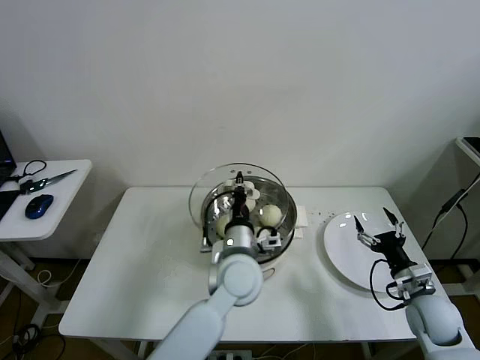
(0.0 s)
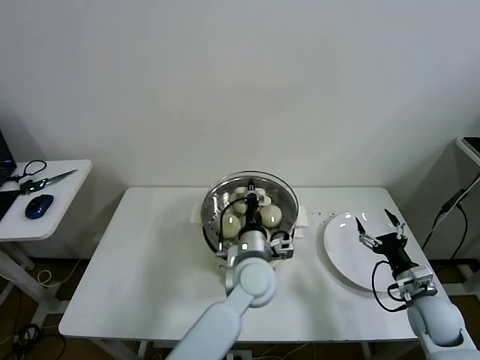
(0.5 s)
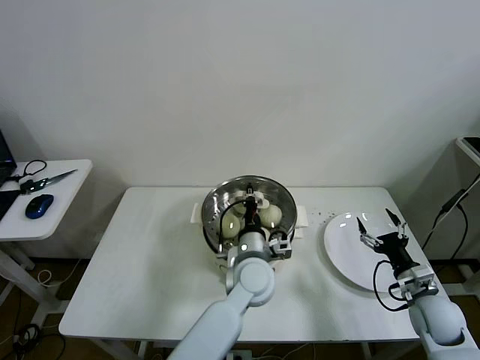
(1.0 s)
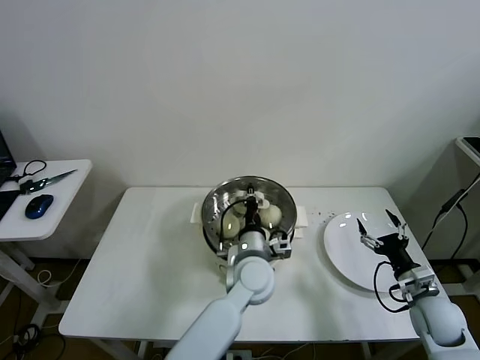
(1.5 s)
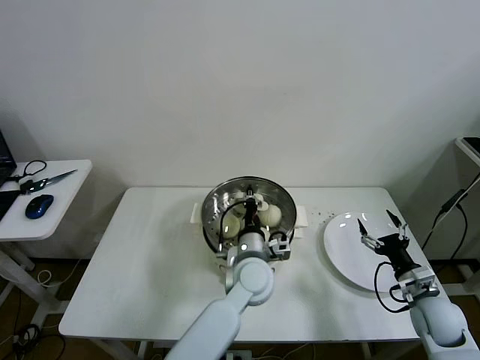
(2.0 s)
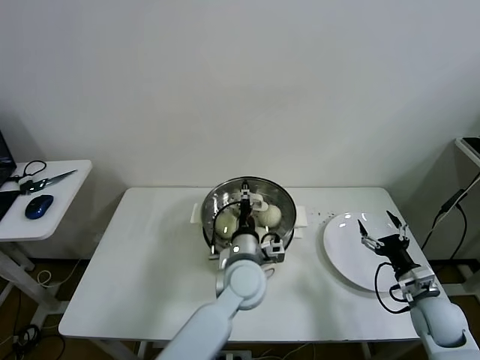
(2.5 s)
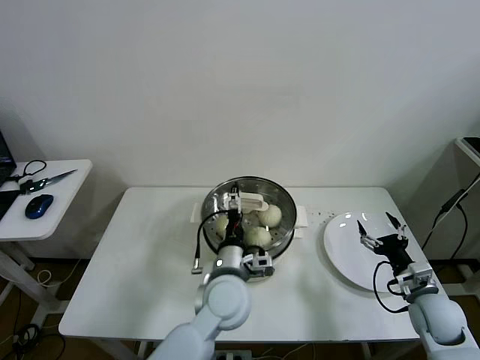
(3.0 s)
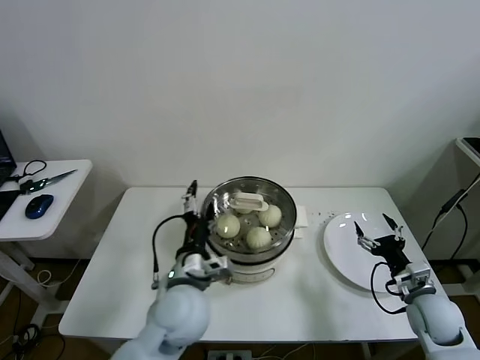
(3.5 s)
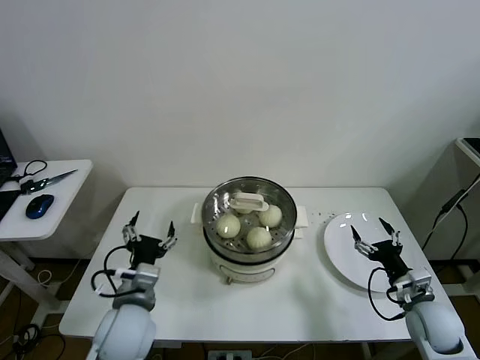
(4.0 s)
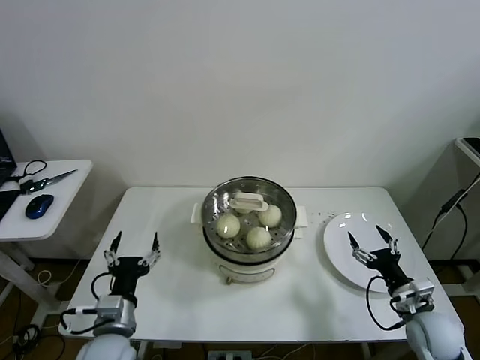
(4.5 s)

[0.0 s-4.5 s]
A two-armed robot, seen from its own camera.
Task of the whole recording: take steamed baozi put them in steamer then cover it.
Step, 0.0 to 2.5 s: Place the pot lid on the steamer with left gripper.
0.0 to 2.0 s: The left gripper is displaced downward by about 5 cm.
2.0 to 4.5 s: The left gripper moves to the left and backward, about 30 cm, and opens up.

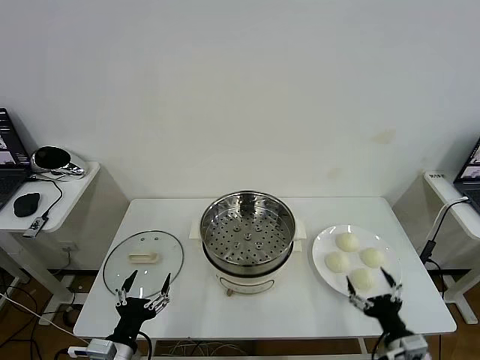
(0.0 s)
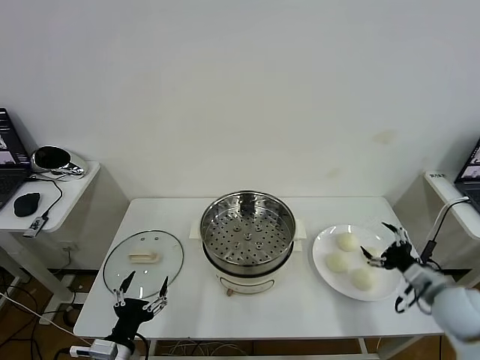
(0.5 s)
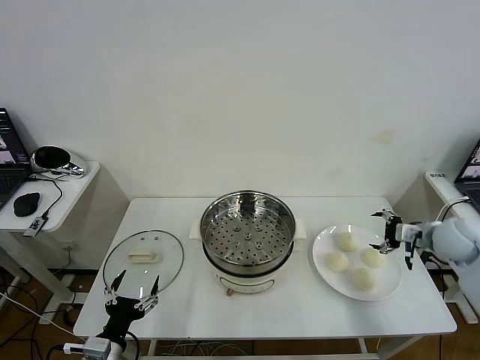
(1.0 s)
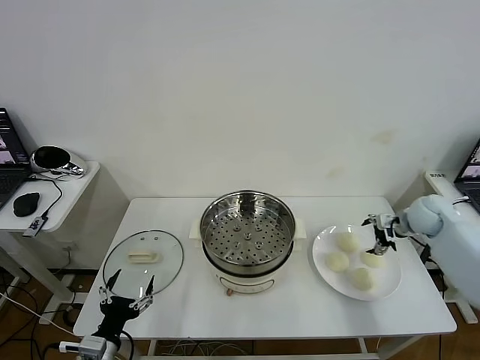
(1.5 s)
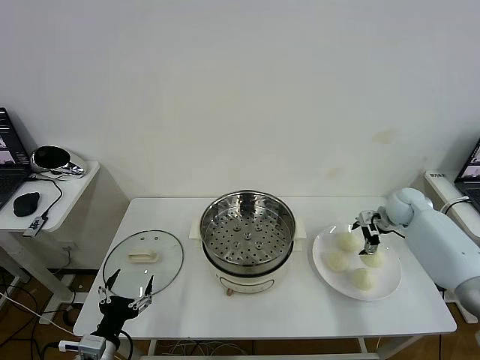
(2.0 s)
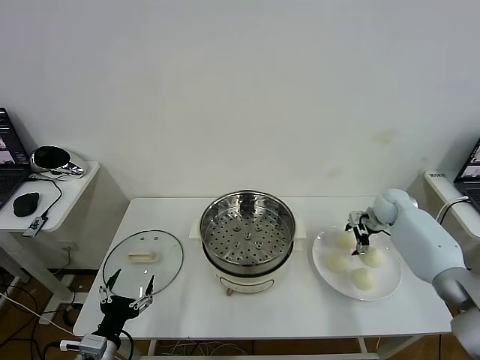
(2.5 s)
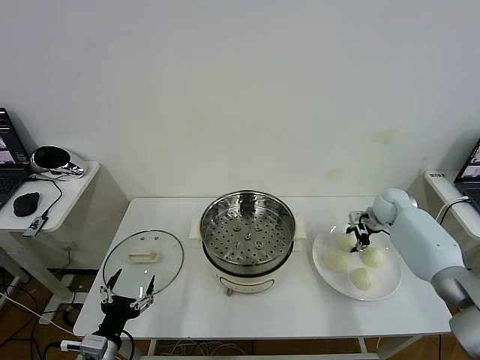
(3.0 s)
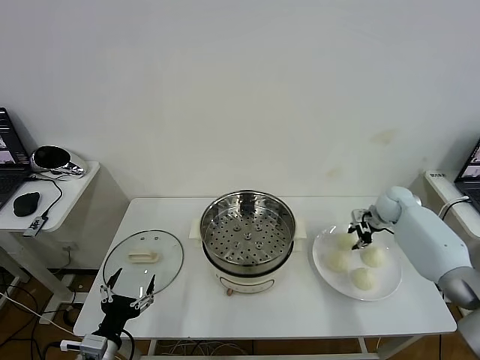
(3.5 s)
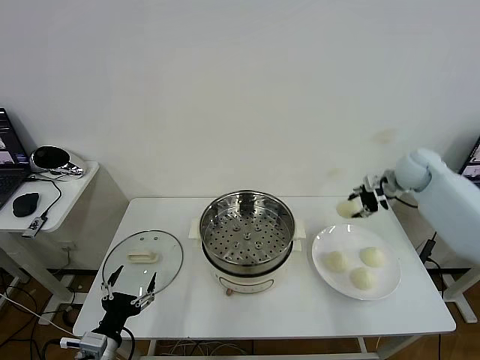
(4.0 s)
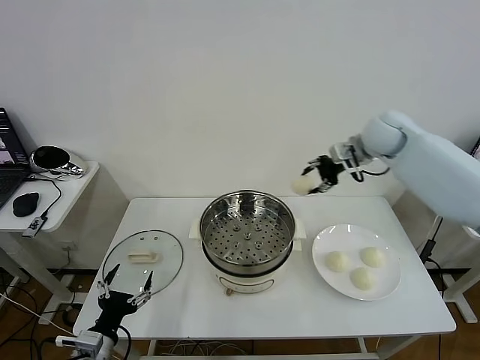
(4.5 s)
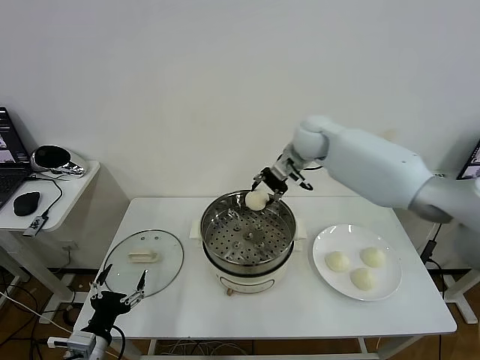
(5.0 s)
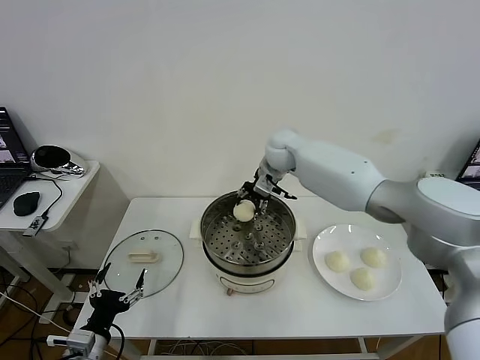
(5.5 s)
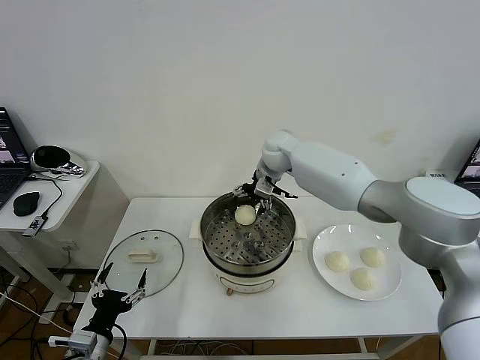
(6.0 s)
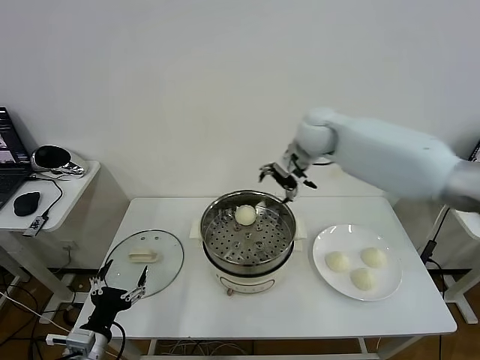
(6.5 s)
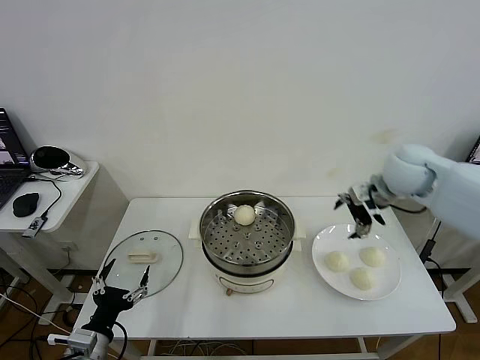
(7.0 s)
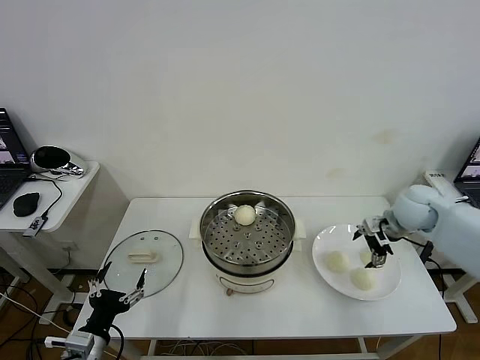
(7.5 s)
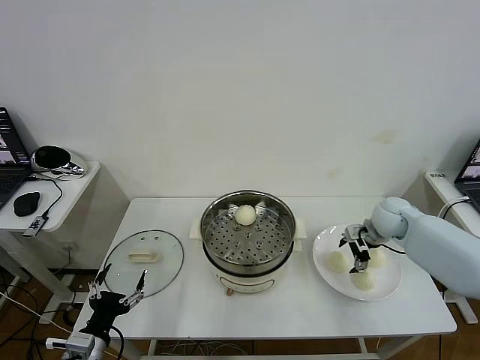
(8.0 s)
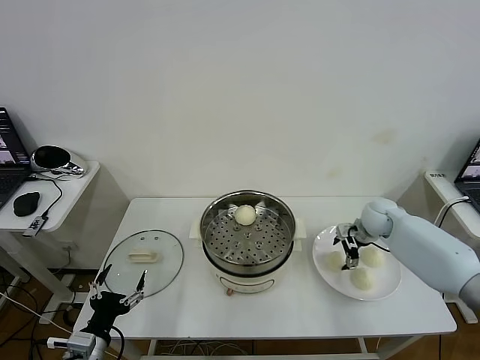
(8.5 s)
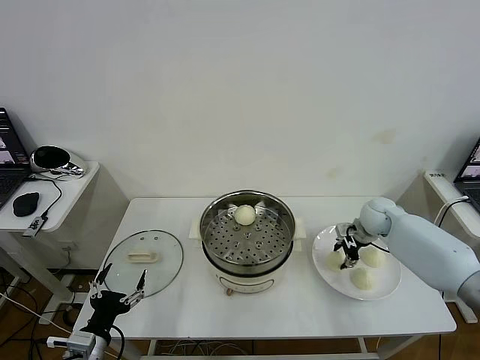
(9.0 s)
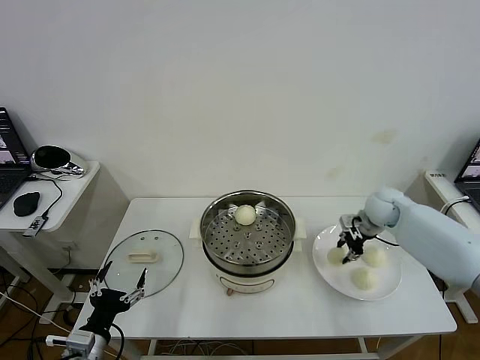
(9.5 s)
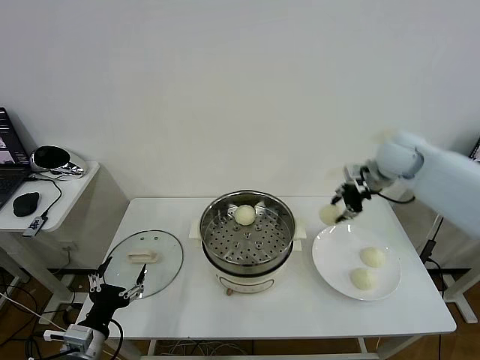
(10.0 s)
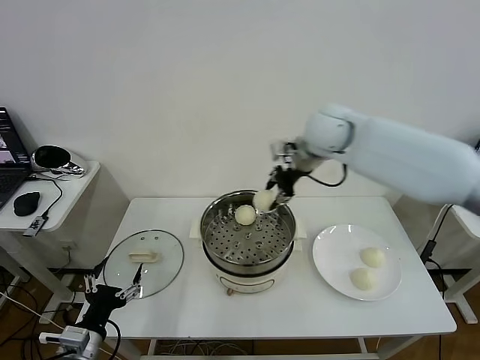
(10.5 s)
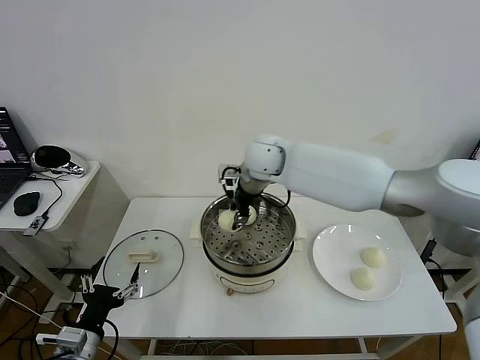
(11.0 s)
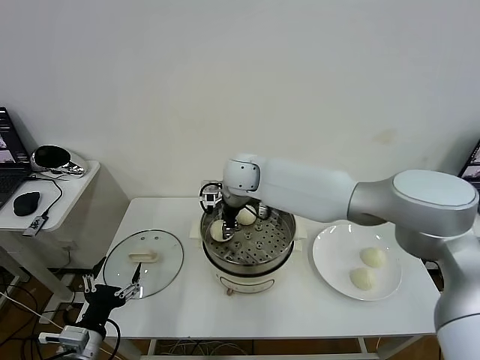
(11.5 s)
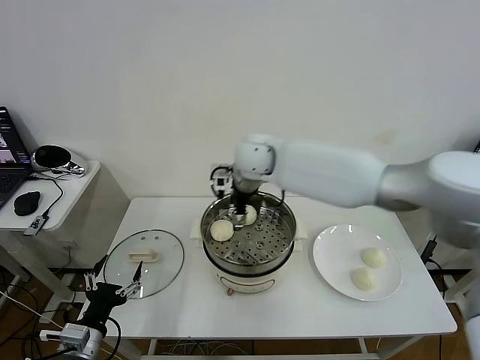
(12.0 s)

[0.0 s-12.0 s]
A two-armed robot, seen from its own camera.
Task of the whole recording: take steamed baozi put them in steamer then cover it.
Step, 0.0 to 3.0 s: Grasp the baozi in the plate with right gripper.
Step, 3.5 to 5.5 s: Place the baozi on the steamer with right gripper.
Step, 6.0 to 9.0 s: Grasp the baozi in the plate with right gripper.
Step, 9.5 to 11.5 s: Place the baozi on the steamer with right gripper.
2.0 to 4.0 s: The right gripper is displaced upward by roughly 15 cm, and closes up.
4.0 to 6.0 s: The right gripper shifts approximately 30 cm to the left, and opens its fingers.
6.0 to 8.0 s: The right gripper moves to the right and downward, about 30 cm.
8.0 to 10.0 s: The right gripper travels upward by roughly 20 cm, and closes up.
10.0 to 12.0 s: The right gripper moves to the left, approximately 25 cm, and opens its fingers.

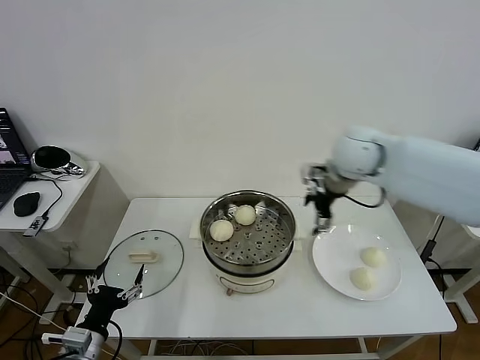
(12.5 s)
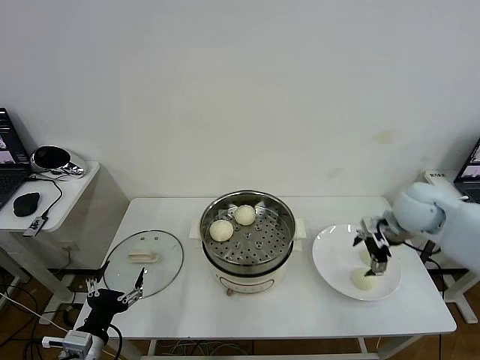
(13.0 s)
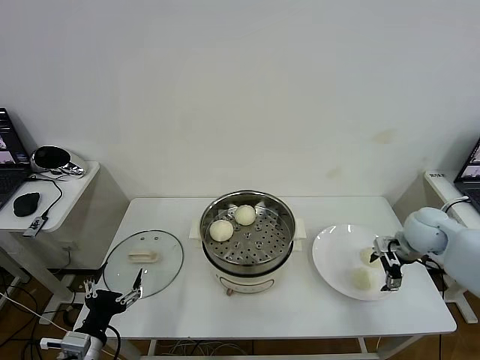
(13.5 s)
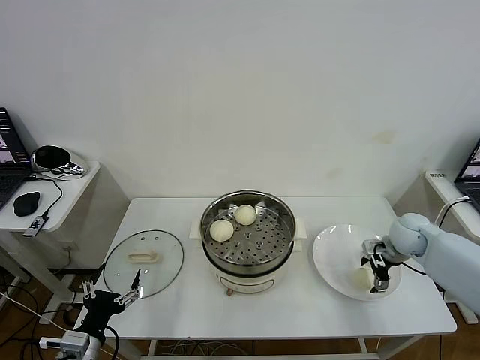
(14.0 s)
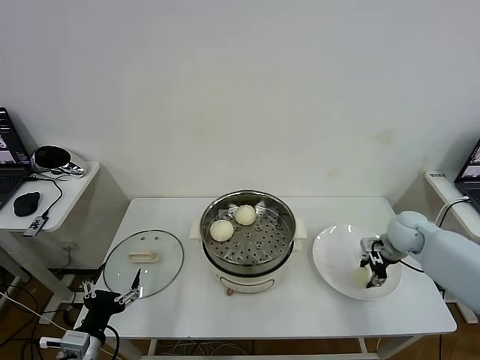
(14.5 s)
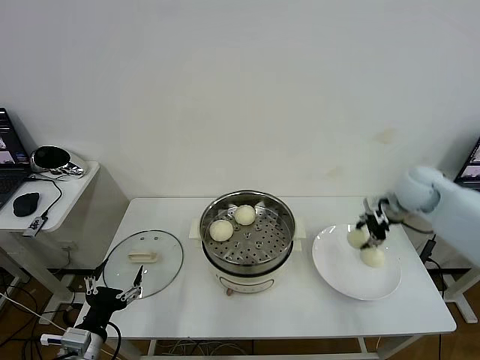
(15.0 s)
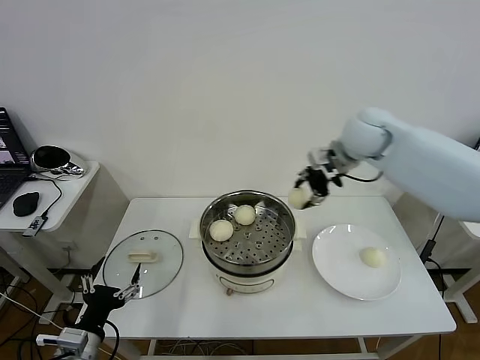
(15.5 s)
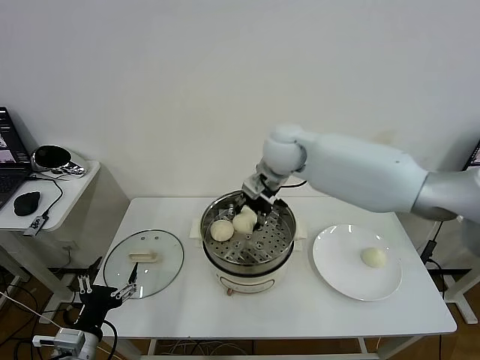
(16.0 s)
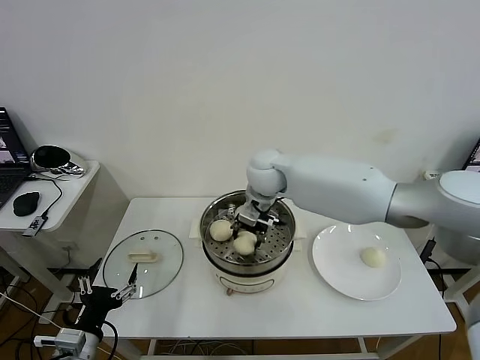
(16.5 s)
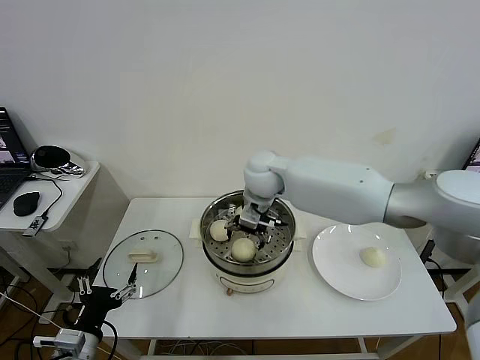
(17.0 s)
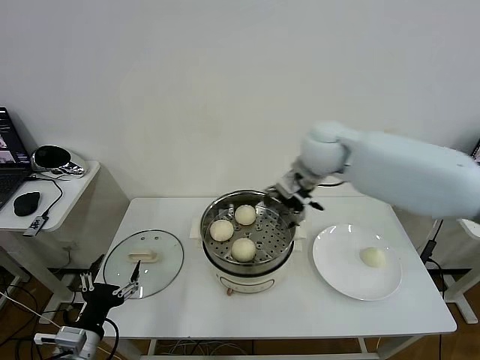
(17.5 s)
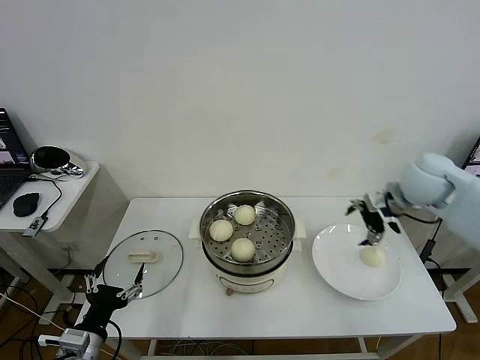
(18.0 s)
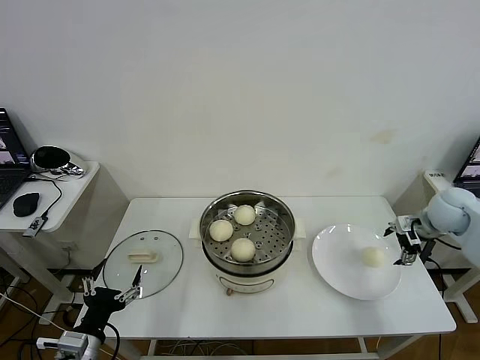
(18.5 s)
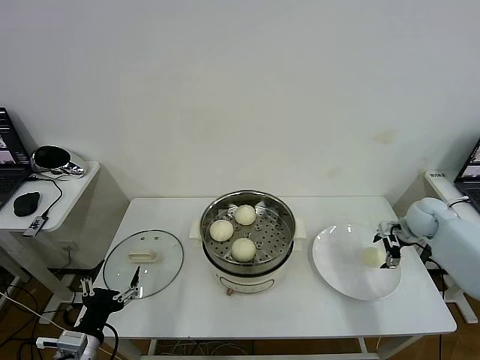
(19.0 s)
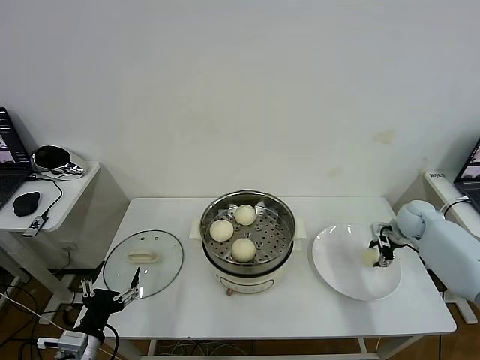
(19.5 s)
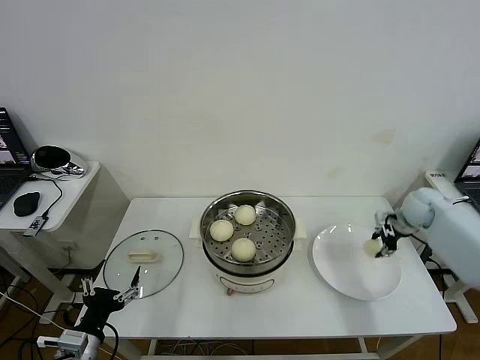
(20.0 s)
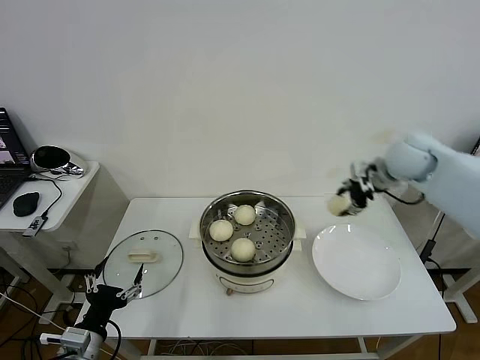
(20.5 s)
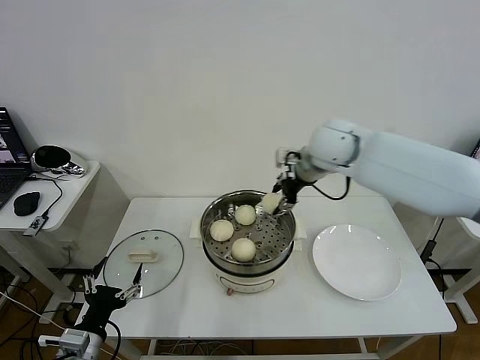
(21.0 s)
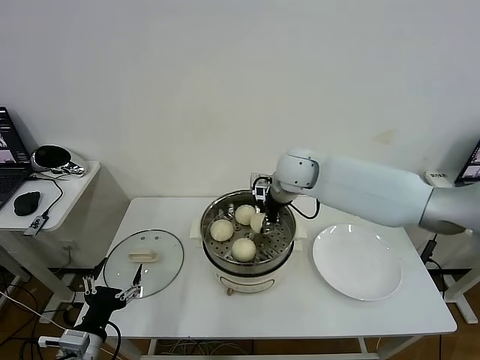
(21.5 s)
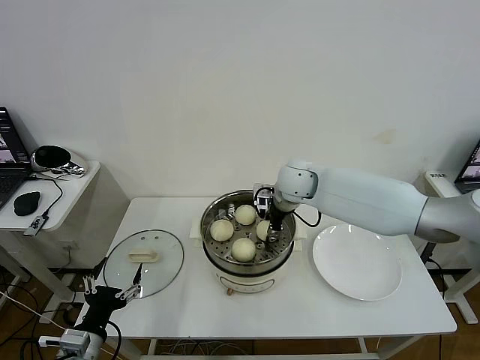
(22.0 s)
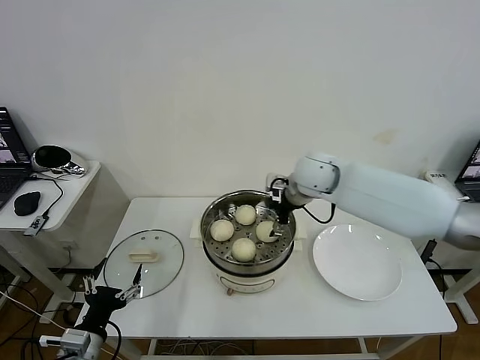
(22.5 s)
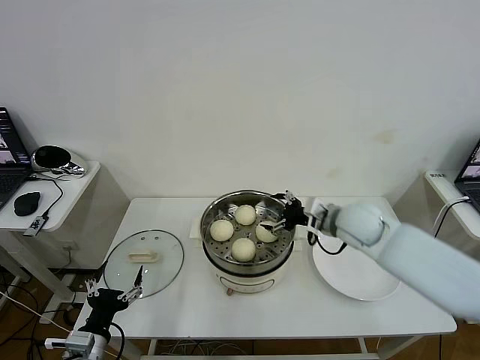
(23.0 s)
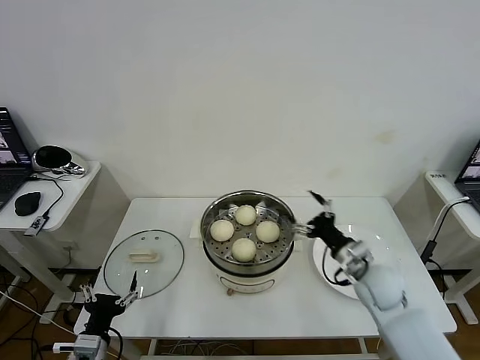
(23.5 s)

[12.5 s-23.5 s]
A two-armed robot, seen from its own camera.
Task of the whole recording: take steamed baozi put them in steamer then cover it.
Step, 12.5 to 14.5 s: Grasp the baozi in the plate with right gripper.
Step, 15.0 to 17.0 s: Place the baozi on the steamer with right gripper.
Step, 17.5 to 19.5 s: Grasp the baozi in the plate with right gripper.
Step, 20.0 to 22.0 s: Place the baozi on the steamer with right gripper.
12.5 to 14.5 s: The right gripper goes roughly 25 cm downward and to the right, and closes its fingers.
14.5 to 16.0 s: The right gripper is displaced to the left and upward by some 35 cm.
16.0 to 18.0 s: The right gripper moves to the right, some 30 cm, and opens up.
18.0 to 20.0 s: The right gripper is displaced downward, to the right and forward by approximately 15 cm, and closes.
20.0 to 21.5 s: The right gripper is displaced to the left by approximately 35 cm.
21.5 to 23.5 s: The right gripper travels backward, to the right and downward by about 30 cm, and opens.
